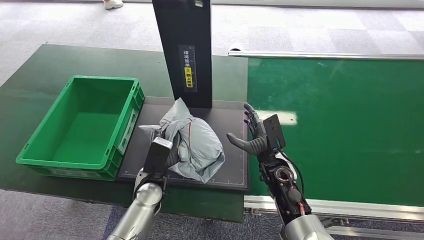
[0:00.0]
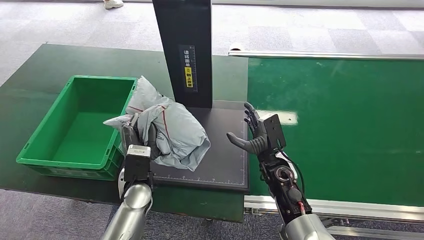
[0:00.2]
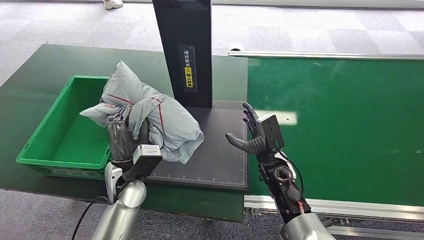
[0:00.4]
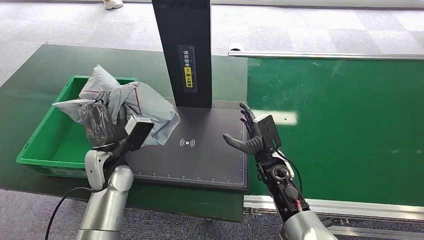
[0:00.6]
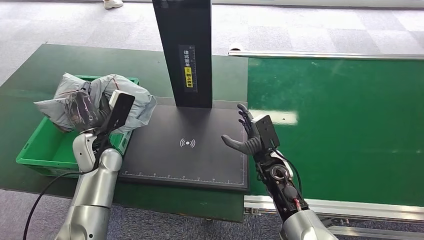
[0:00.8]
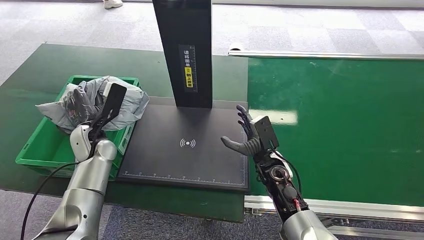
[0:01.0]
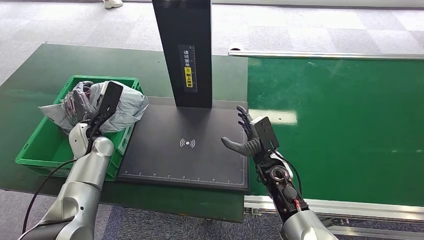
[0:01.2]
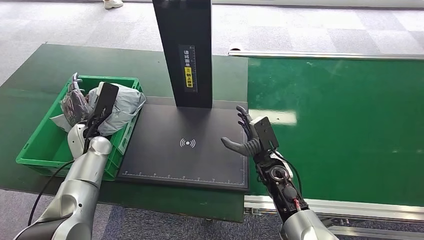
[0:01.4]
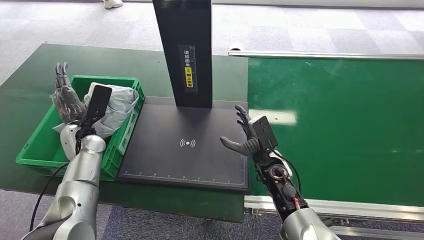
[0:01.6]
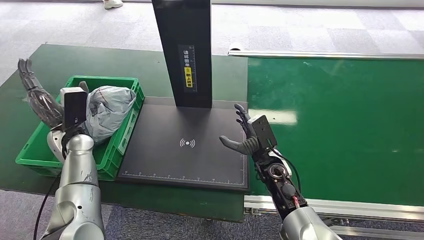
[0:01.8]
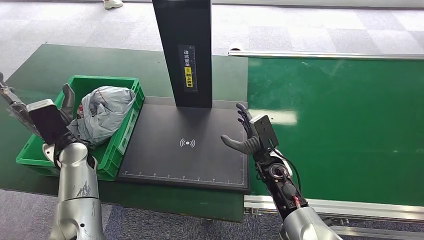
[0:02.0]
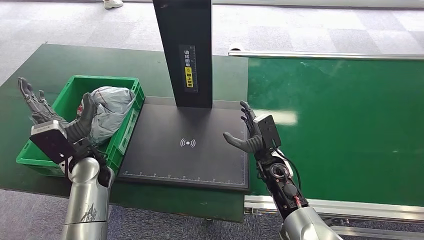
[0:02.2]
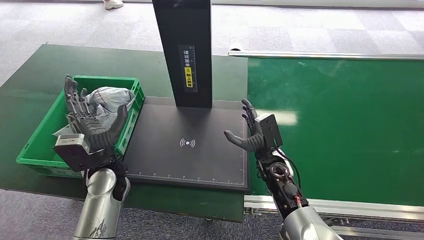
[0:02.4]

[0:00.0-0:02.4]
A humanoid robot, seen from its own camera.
Step, 0:00.8 to 0:02.4: Place the package into the parcel locker.
0:00.0 to 0:01.2: The left hand goes some 20 cm to the left, forward and upward.
0:01.2 to 0:02.4: The left hand travels to the right and backward by some 10 cm.

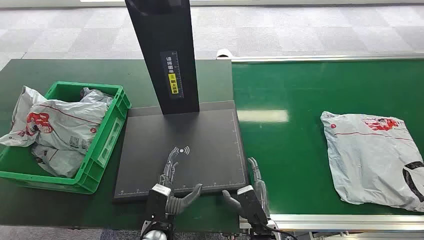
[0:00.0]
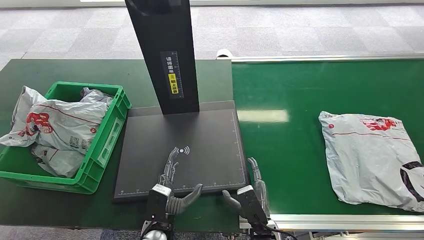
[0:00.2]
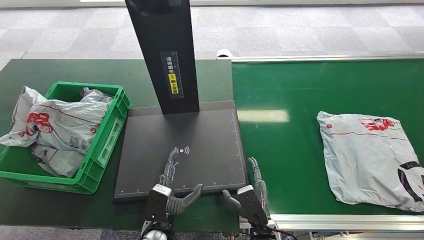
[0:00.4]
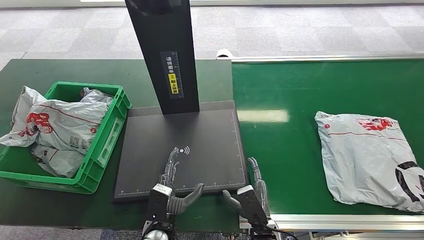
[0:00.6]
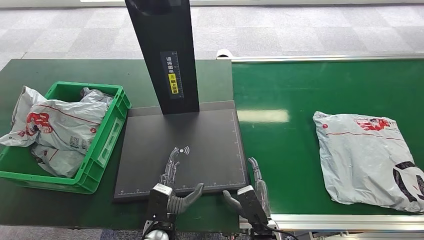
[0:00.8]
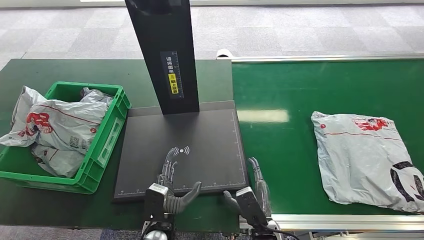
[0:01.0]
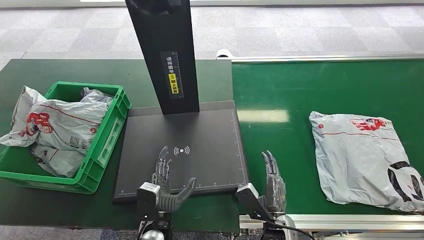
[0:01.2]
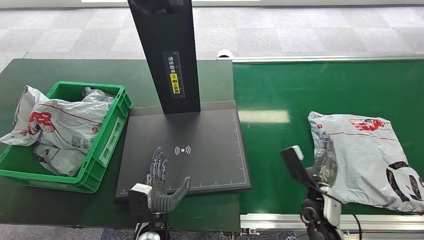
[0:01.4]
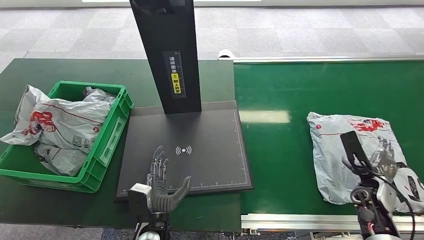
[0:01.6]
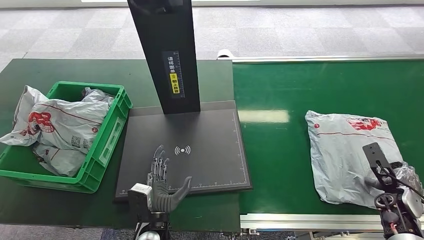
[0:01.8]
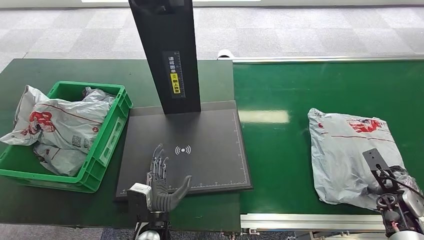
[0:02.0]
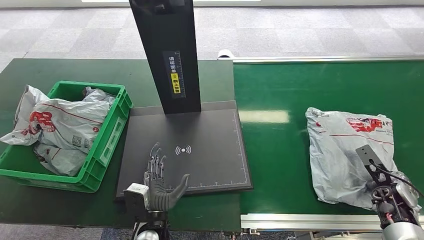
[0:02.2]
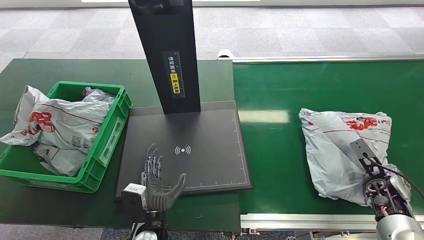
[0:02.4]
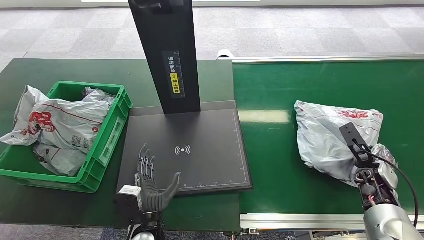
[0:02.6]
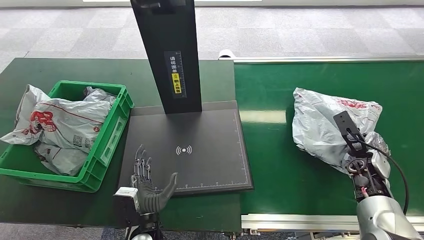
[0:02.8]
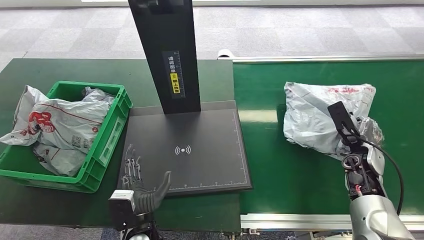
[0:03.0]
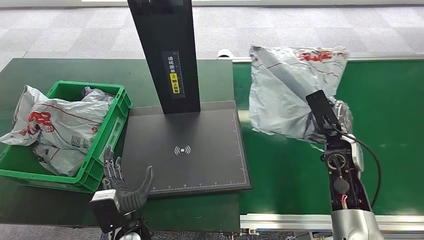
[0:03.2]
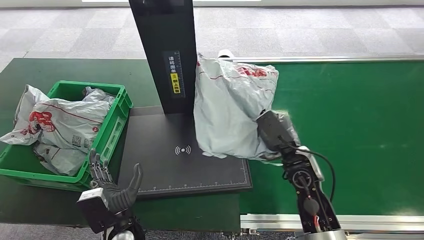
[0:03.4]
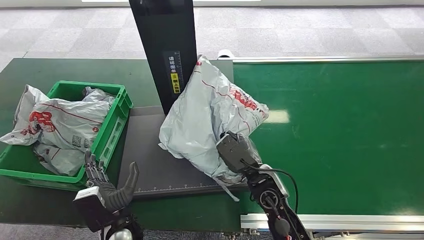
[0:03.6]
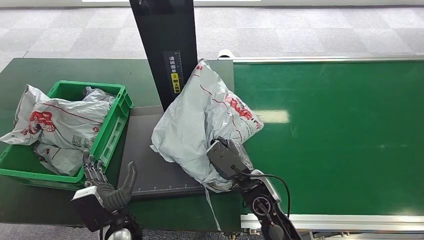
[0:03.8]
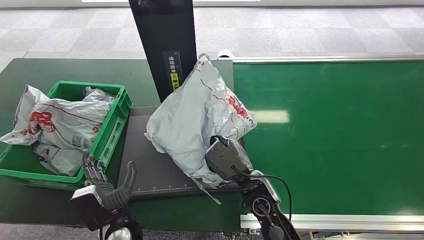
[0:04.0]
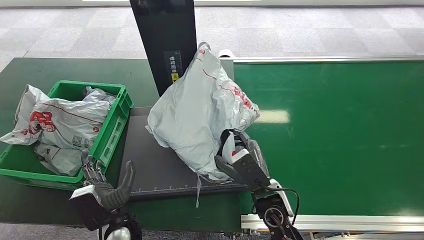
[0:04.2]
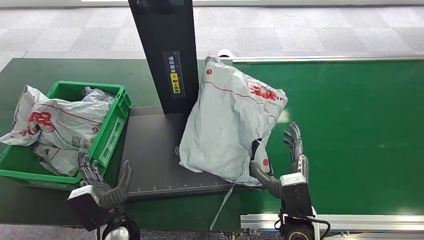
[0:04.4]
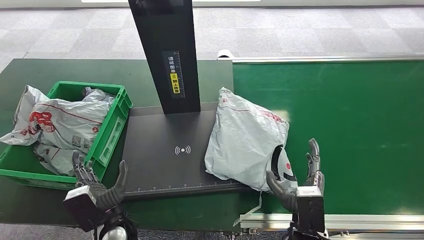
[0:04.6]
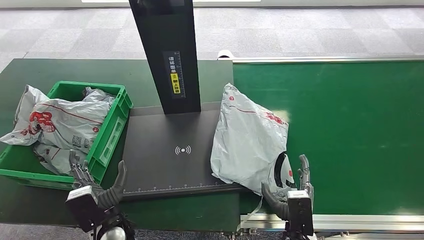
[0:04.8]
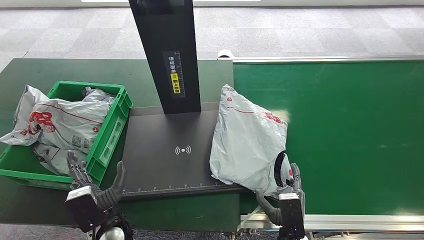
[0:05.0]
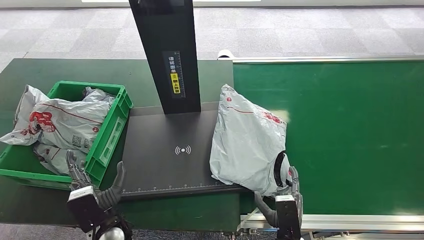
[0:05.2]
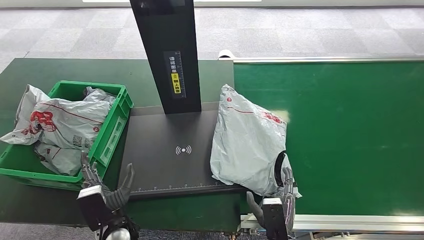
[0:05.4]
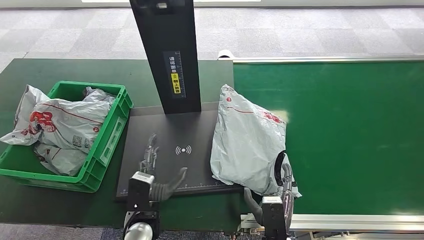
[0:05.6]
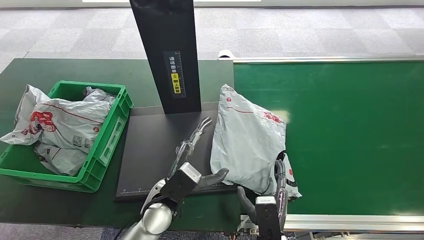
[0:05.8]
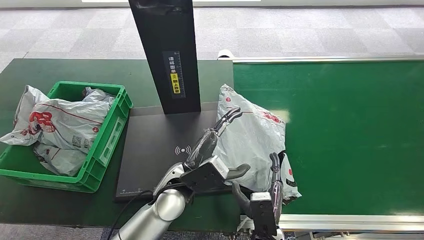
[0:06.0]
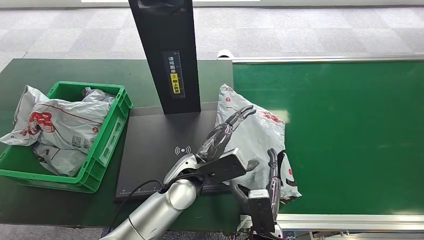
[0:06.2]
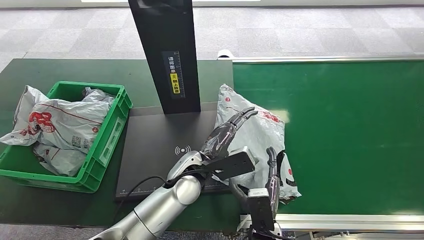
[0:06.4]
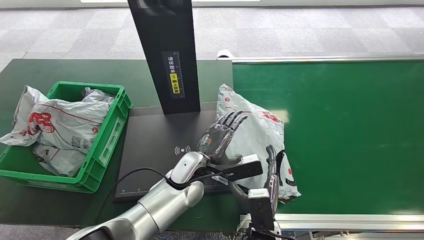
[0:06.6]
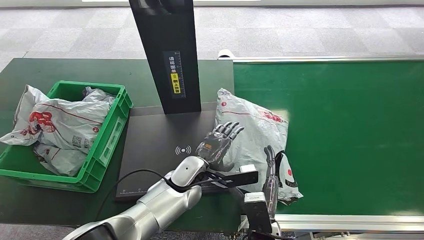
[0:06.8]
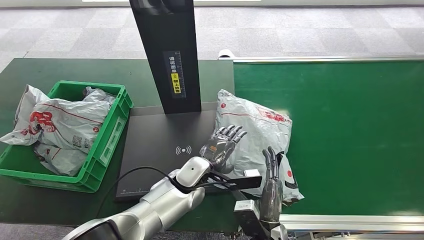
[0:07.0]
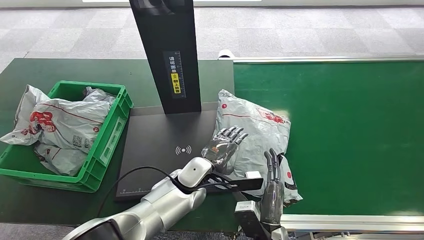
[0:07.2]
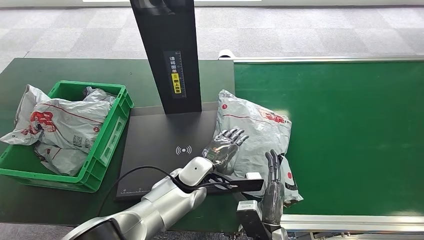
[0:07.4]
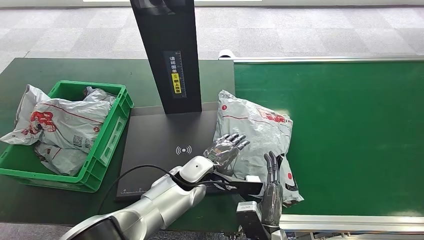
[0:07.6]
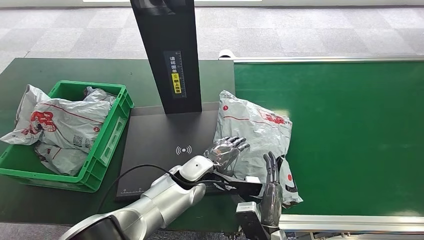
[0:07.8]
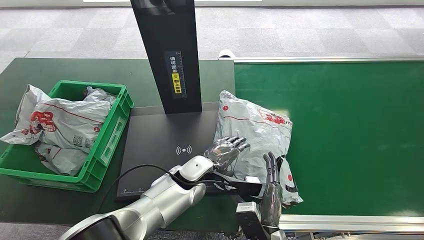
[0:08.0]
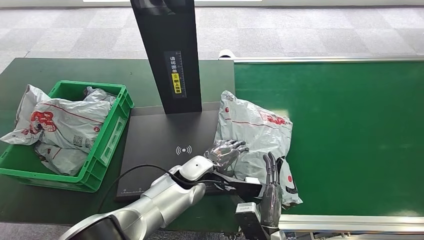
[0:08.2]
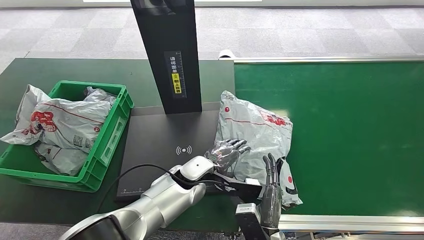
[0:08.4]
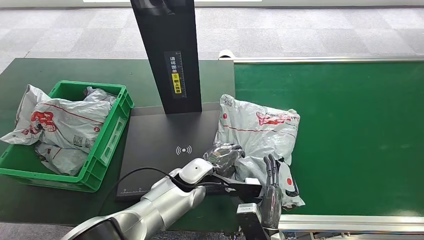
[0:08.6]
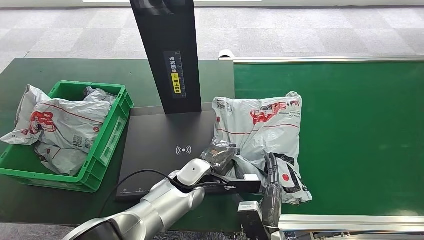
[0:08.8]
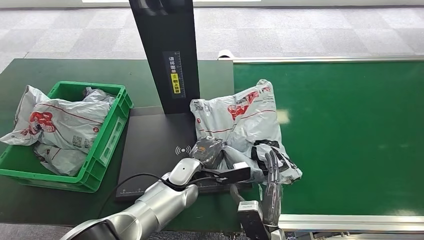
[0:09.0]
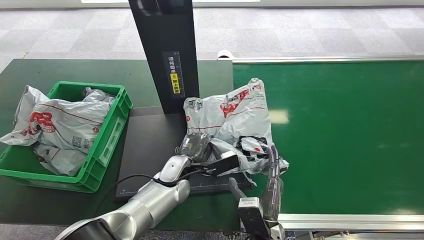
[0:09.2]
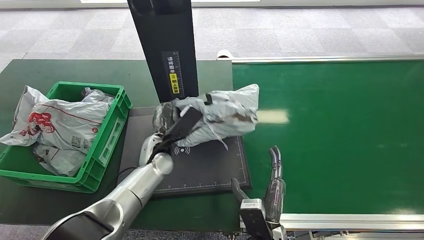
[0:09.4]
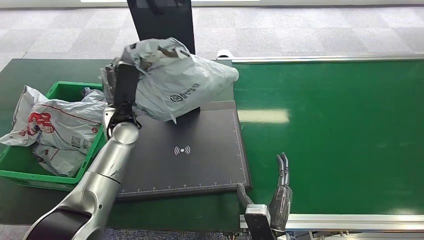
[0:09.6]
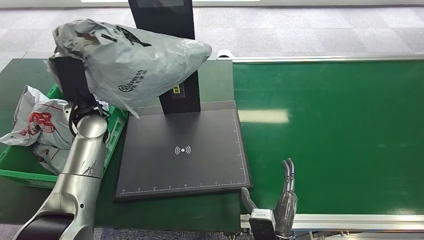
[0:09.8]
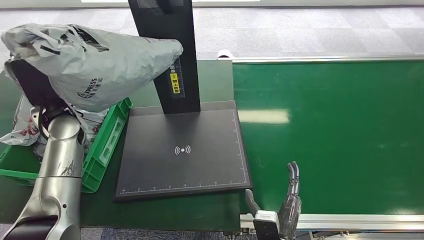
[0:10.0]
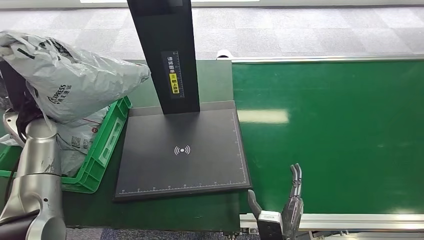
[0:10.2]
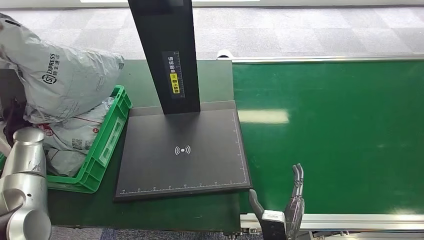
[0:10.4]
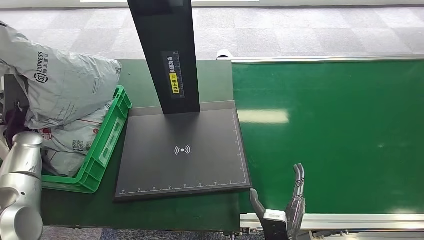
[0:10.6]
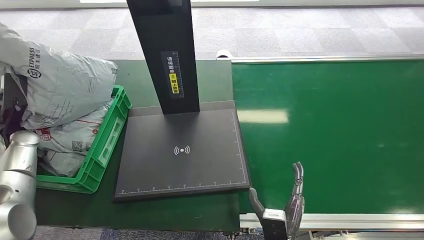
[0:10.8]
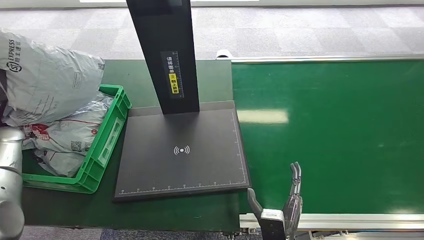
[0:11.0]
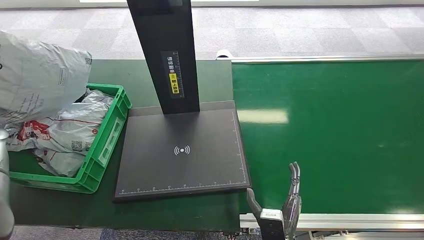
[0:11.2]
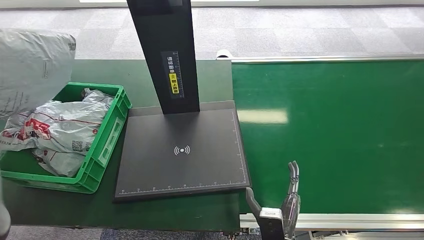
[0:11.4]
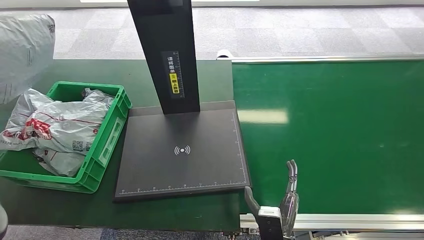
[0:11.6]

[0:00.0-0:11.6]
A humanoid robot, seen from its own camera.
Step, 0:00.0 to 0:03.2: Pick up the package from the conveyor belt.
Step, 0:03.4 to 0:05.4: Place the package onto the inbound machine.
Step, 0:05.6 to 0:09.6: Pick up the package from the inbound machine.
0:01.4 to 0:02.8: The right hand travels to the right, forward and upward by some 20 cm.
0:04.4 to 0:05.8: The right hand is displaced downward and backward by roughly 10 cm, while the left hand goes approximately 10 cm to the right and forward.
0:05.8 to 0:07.2: The left hand travels forward by some 10 cm.
0:07.2 to 0:08.8: The hands move only a little.
0:10.2 to 0:11.6: The left hand travels to the left by about 15 cm.

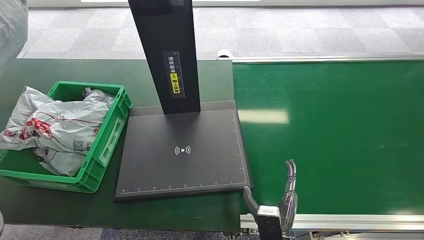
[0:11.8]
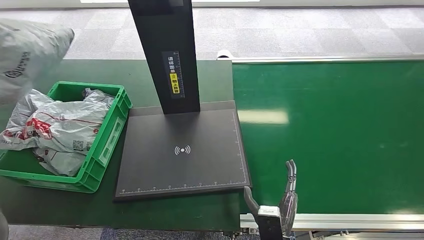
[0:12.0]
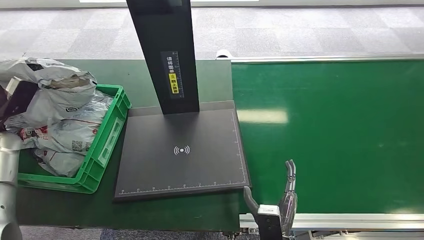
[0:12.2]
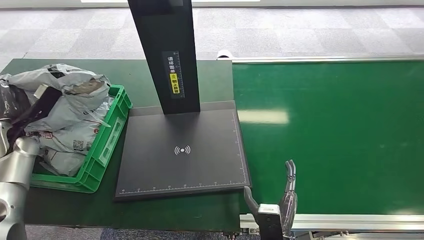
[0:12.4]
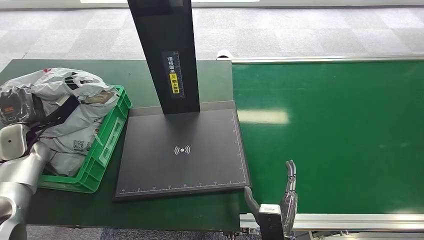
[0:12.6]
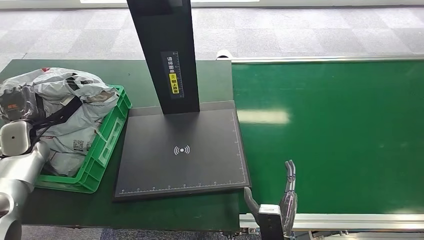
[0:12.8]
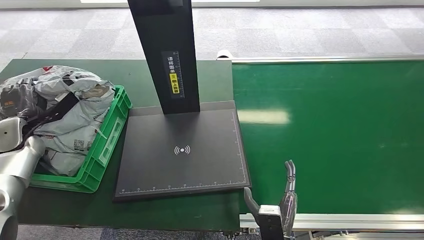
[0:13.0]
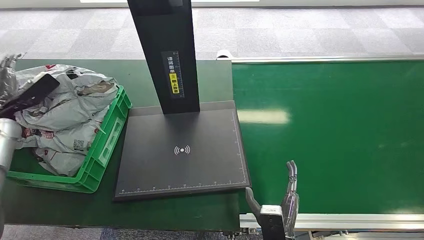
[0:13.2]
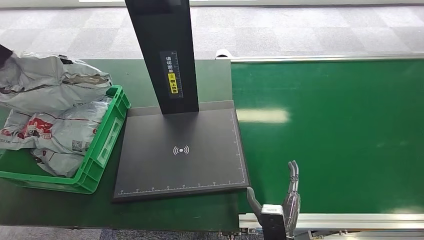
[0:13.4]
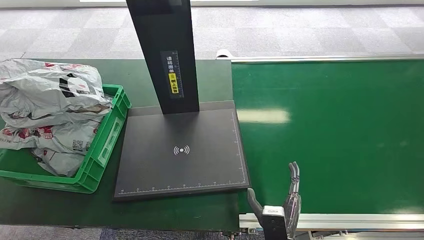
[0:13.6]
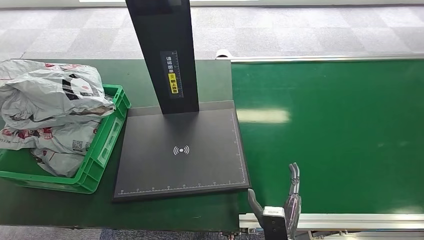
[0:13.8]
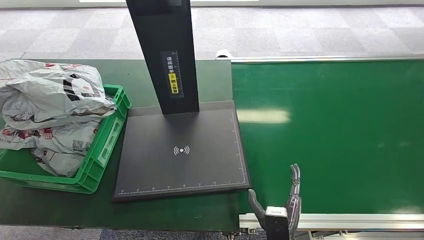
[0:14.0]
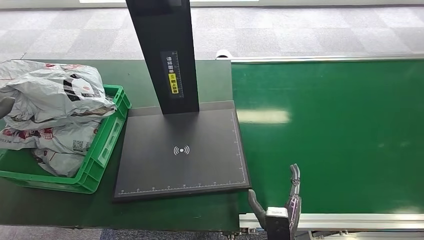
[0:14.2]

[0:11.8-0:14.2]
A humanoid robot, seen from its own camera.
Step, 0:11.8 to 0:14.2: Place the package into the parcel locker.
0:11.8 to 0:13.0: The left hand goes some 10 cm downward and to the right.
0:13.0 to 0:14.2: The left hand moves upward and backward, roughly 20 cm.
